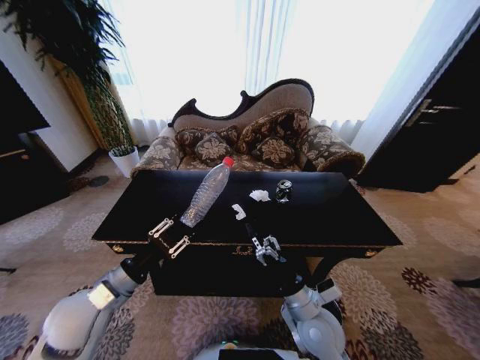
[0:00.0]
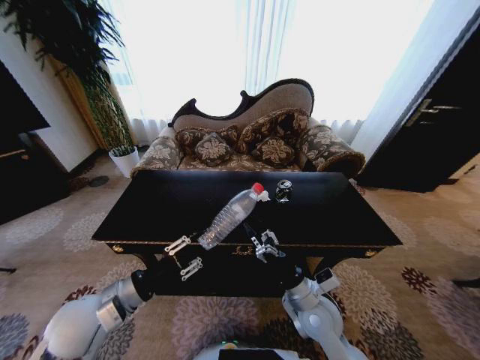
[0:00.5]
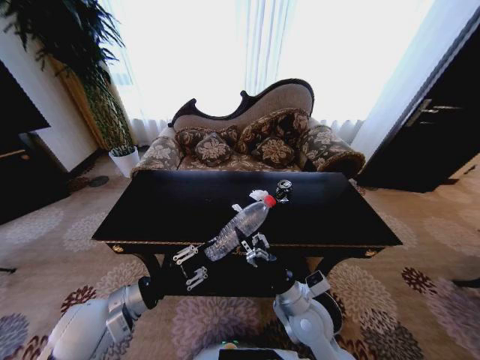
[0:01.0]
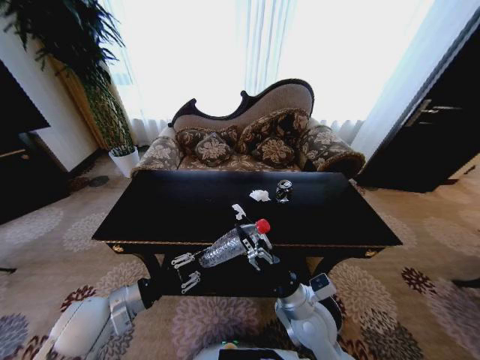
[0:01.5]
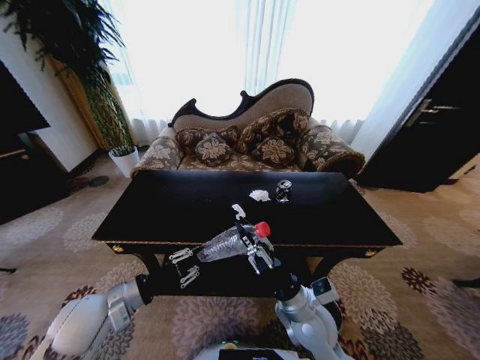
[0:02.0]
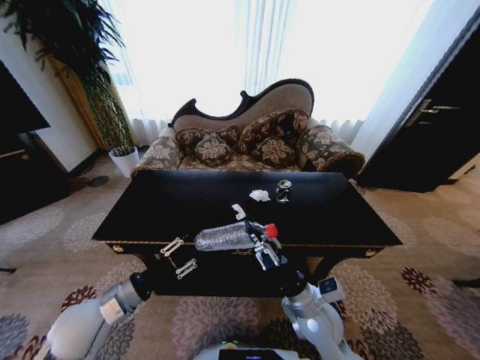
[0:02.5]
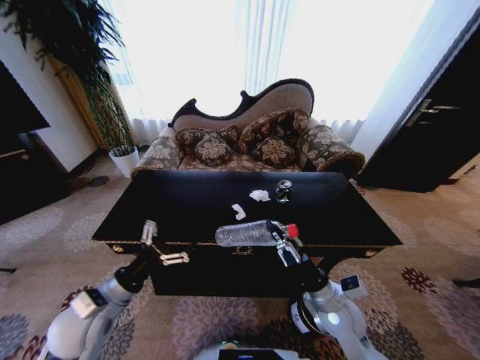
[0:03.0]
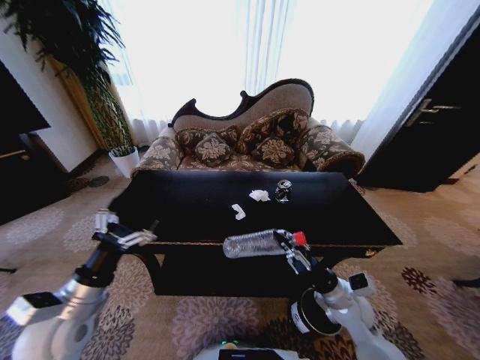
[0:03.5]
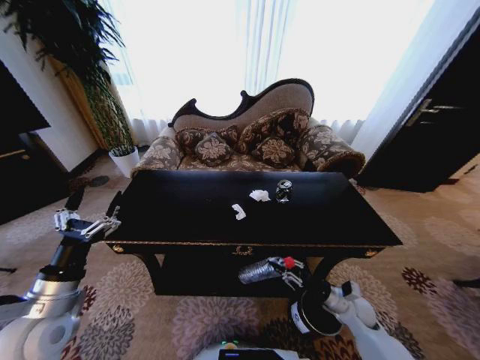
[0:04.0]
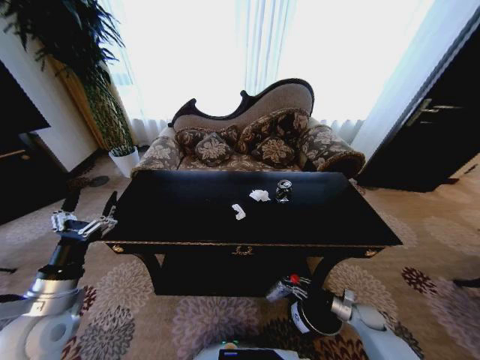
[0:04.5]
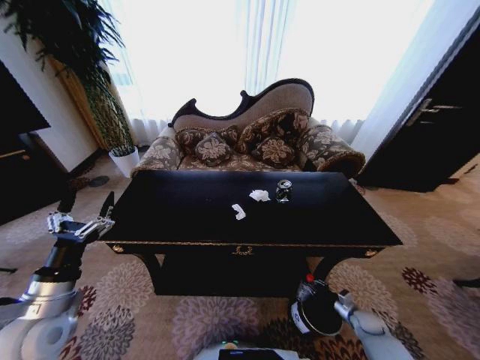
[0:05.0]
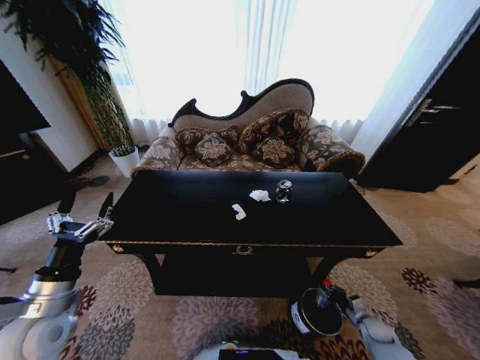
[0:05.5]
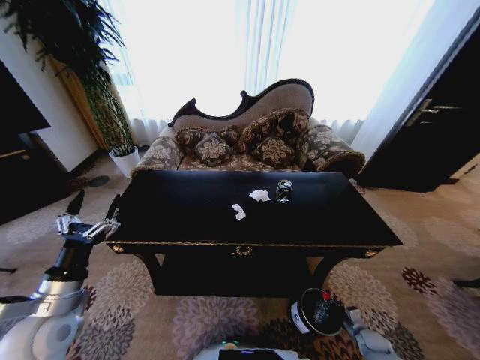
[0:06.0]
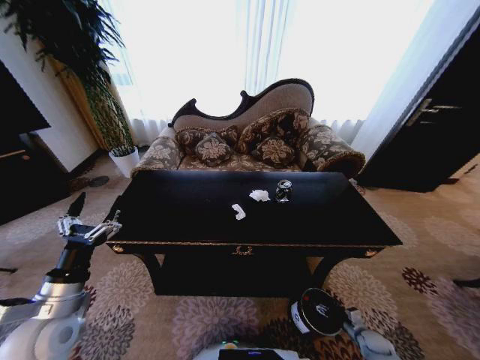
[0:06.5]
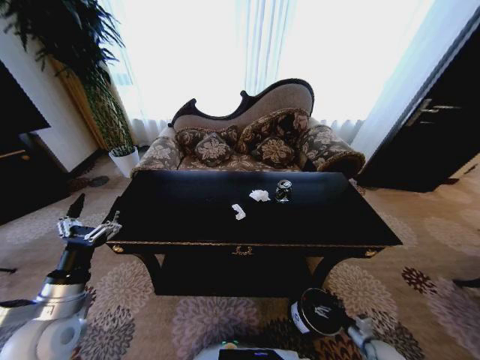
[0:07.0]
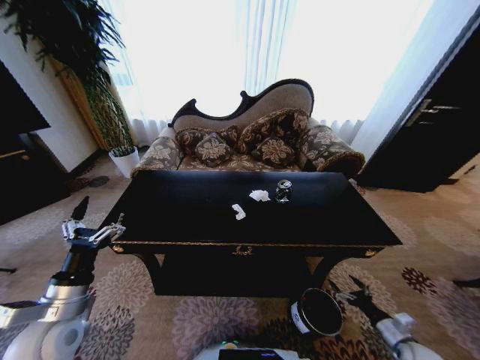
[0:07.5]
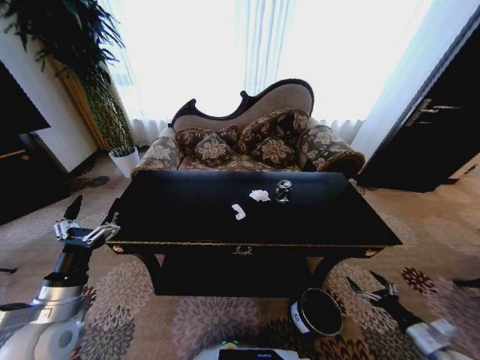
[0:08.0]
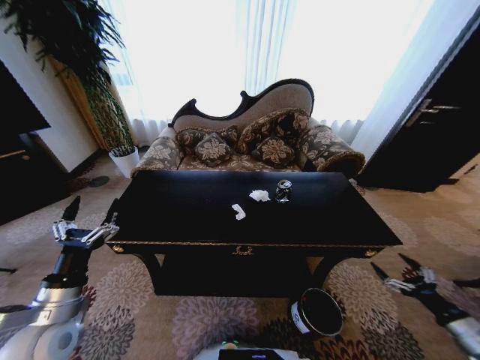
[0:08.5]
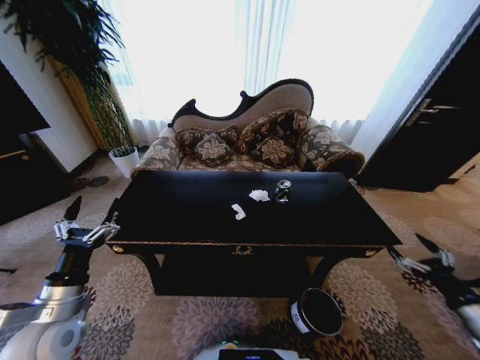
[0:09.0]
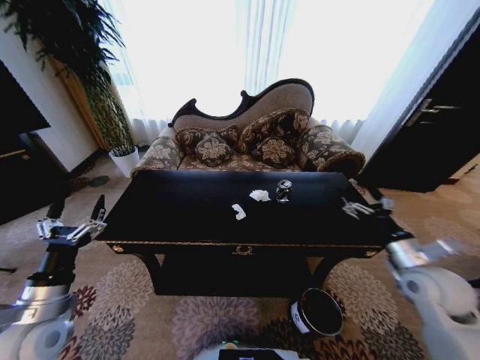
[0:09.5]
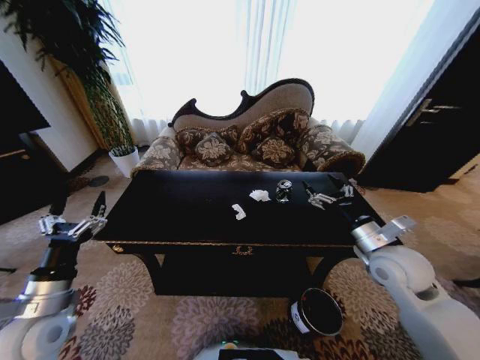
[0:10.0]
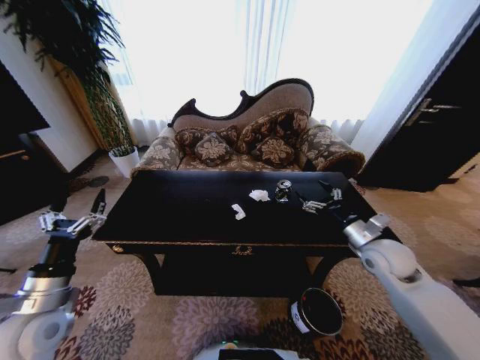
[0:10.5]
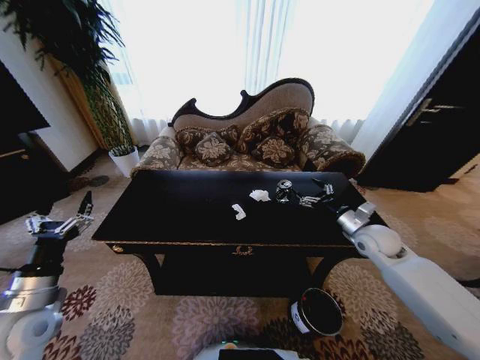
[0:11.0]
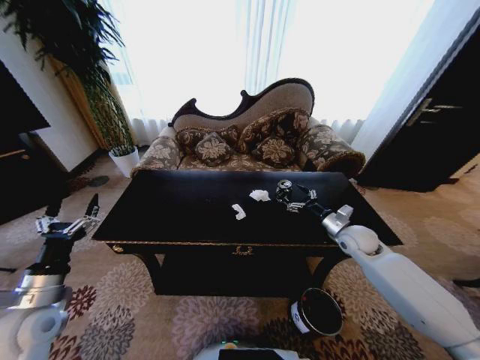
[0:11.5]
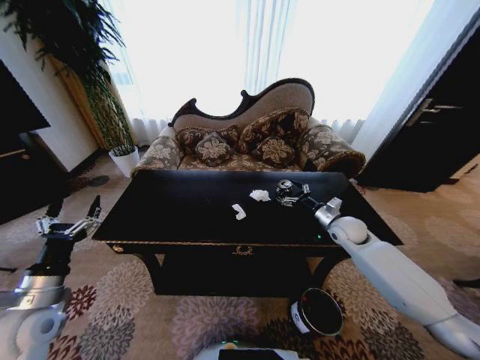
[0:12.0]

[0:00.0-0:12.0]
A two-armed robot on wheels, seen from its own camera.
Task of the whole recording: Move to the front of the table and place the trash on the table into the trash bin.
0:00.0 to 0:02.0: The right gripper closes.
0:02.0 to 0:04.0: The left gripper moves to the left, approximately 5 cm, and opens, while the right gripper is displaced to the right and downward by approximately 25 cm.
0:04.0 to 0:06.0: The right gripper moves downward and to the right, roughly 25 cm.
0:06.0 to 0:08.0: The right gripper travels upward by some 20 cm, and opens up.
0:08.0 to 0:10.0: The right gripper is displaced upward, to the left and forward by some 35 cm.
0:10.0 to 0:12.0: The right gripper moves forward and downward, some 20 cm.

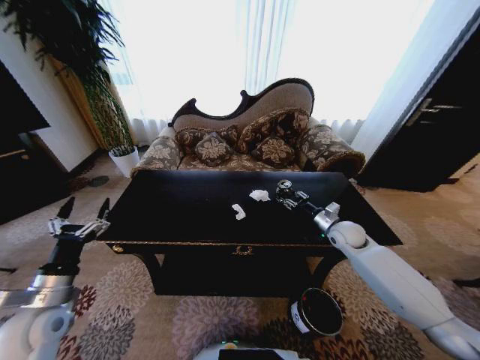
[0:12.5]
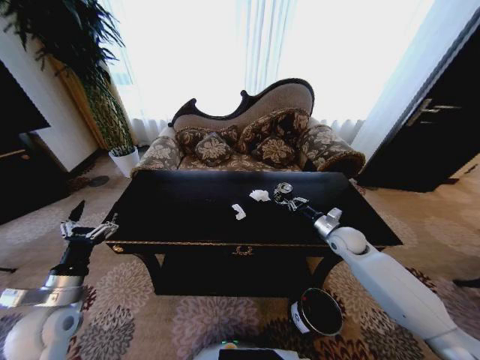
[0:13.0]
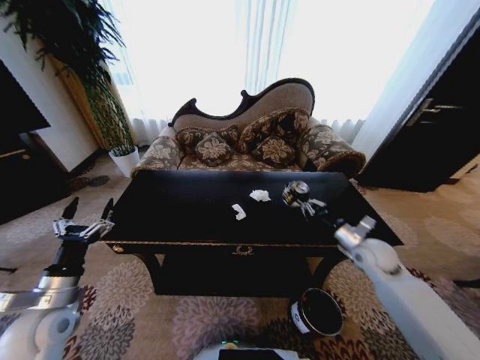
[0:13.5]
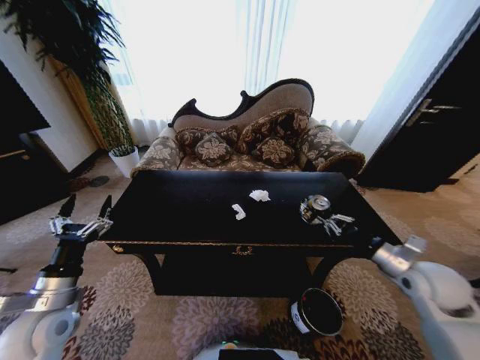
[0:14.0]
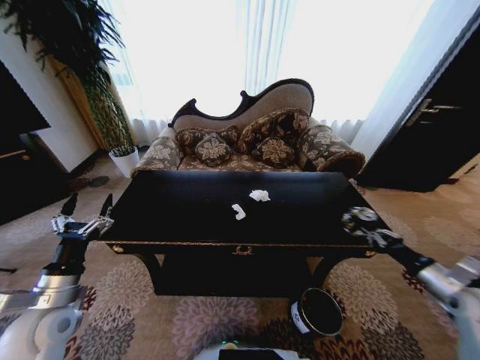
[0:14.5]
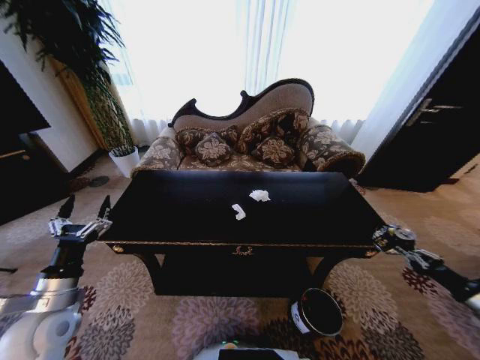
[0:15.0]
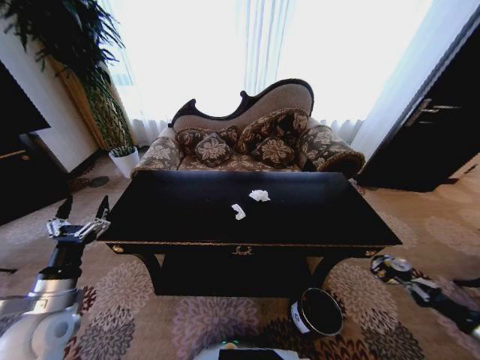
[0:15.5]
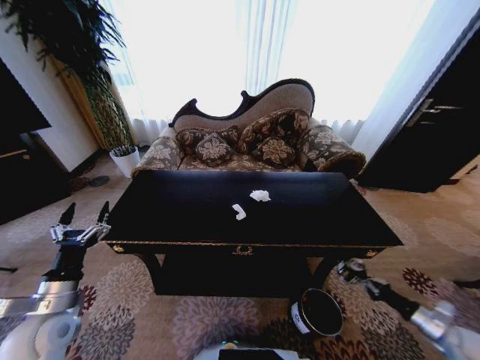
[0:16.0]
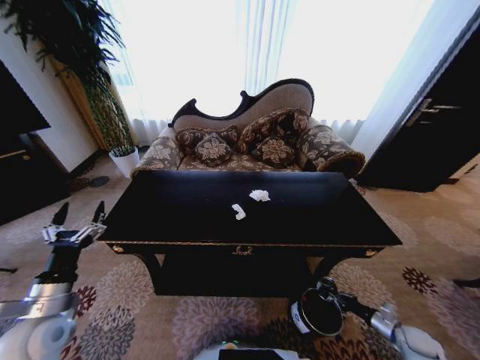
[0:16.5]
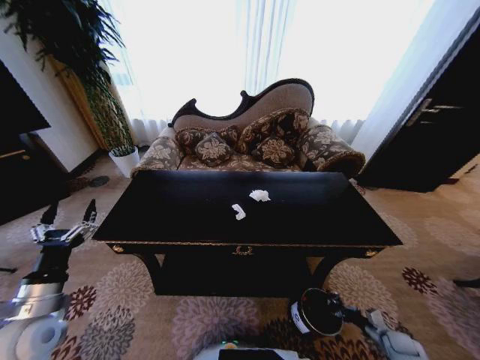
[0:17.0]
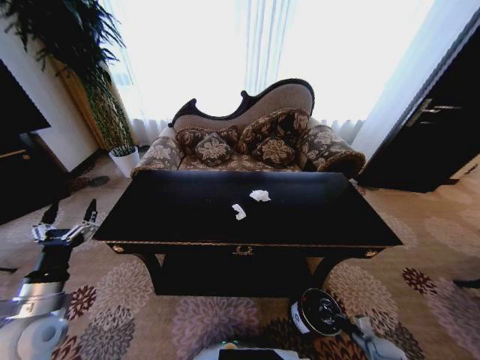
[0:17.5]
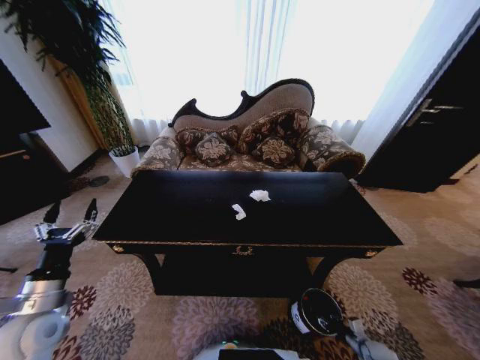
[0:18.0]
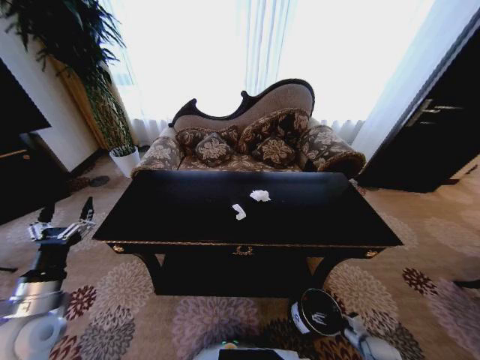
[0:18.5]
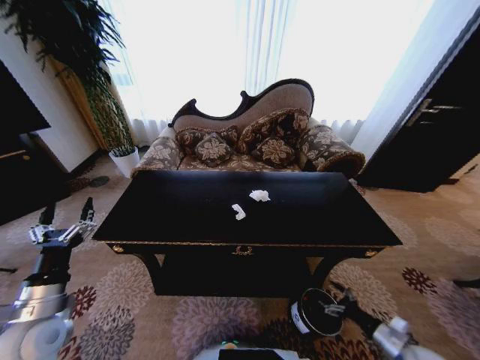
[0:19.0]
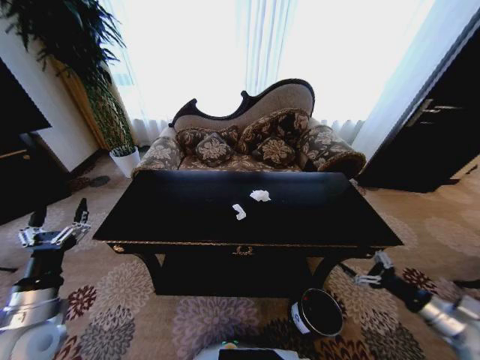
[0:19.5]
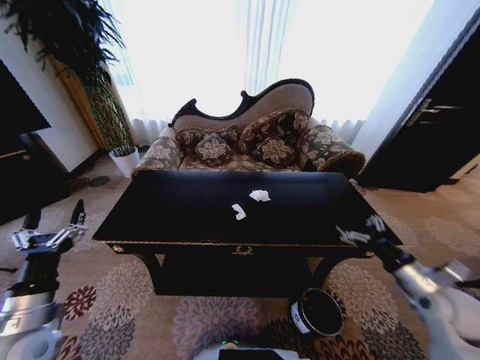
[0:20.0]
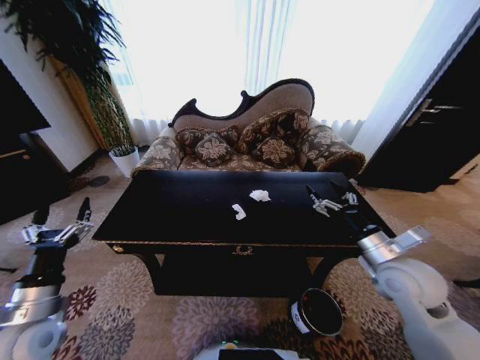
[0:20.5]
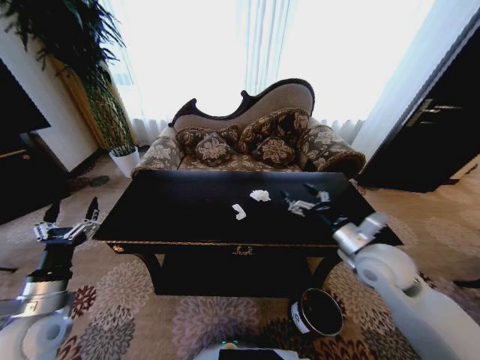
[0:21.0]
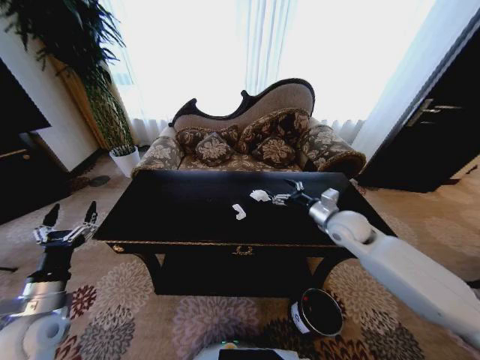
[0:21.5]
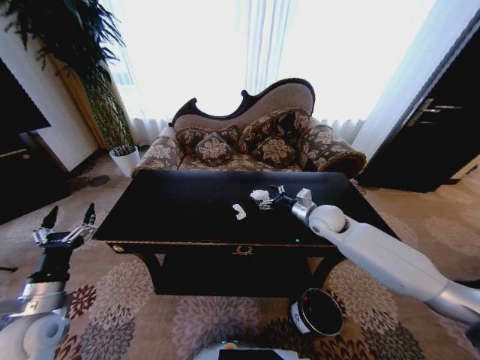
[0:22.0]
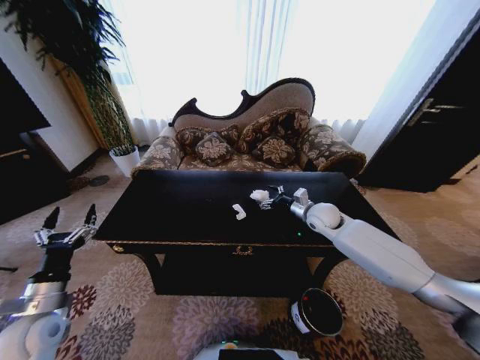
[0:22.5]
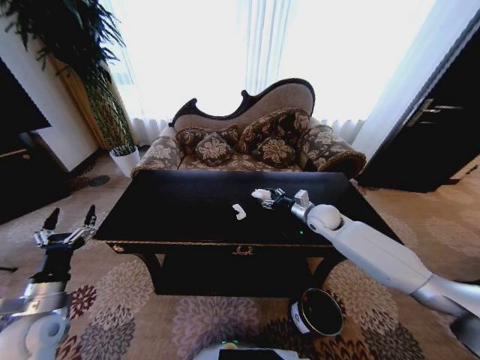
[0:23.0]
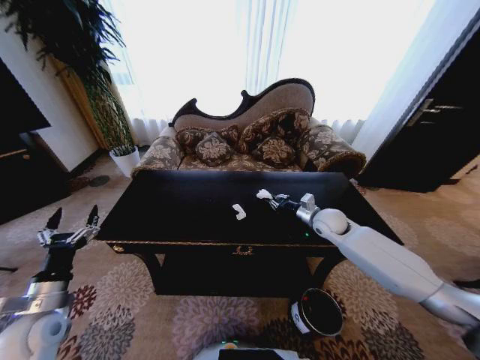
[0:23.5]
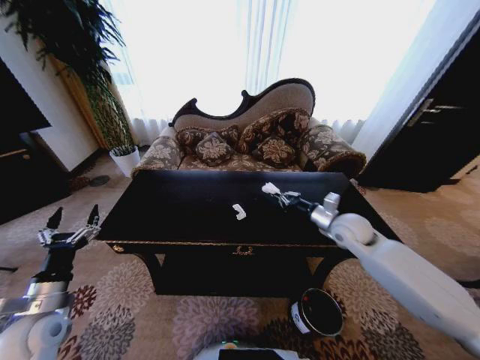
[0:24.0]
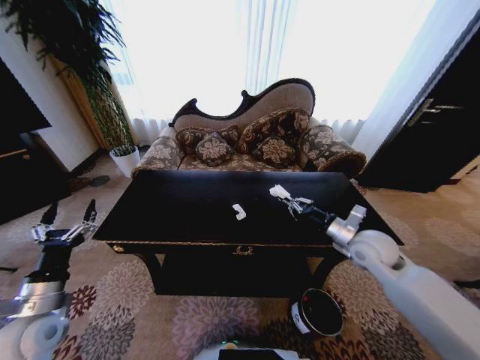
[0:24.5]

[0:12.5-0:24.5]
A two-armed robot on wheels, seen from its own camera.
Task of the whole recording: Move to the front of the table and place the trash on the table into the trash bin.
0:12.5 to 0:14.5: The right gripper is displaced backward and to the right by about 30 cm, and closes its fingers.
0:14.5 to 0:16.5: The right gripper heads downward, covering about 25 cm.
0:16.5 to 0:18.5: The right gripper goes about 10 cm to the left and downward, and opens up.
0:18.5 to 0:20.5: The right gripper heads upward, covering some 40 cm.
0:20.5 to 0:22.5: The right gripper goes approximately 20 cm forward.
0:22.5 to 0:24.5: The right gripper moves backward, some 15 cm, and closes its fingers.

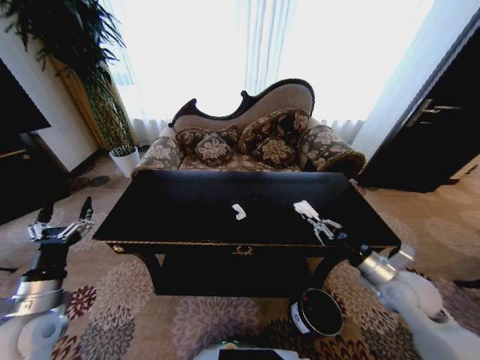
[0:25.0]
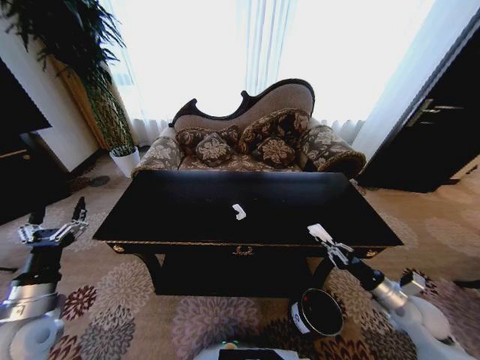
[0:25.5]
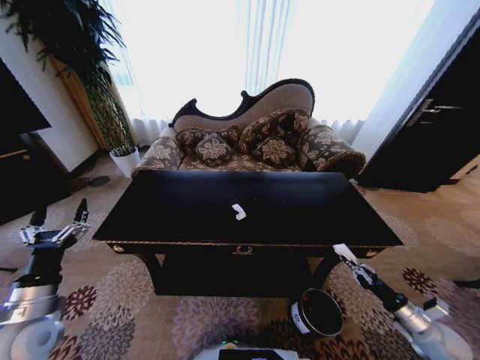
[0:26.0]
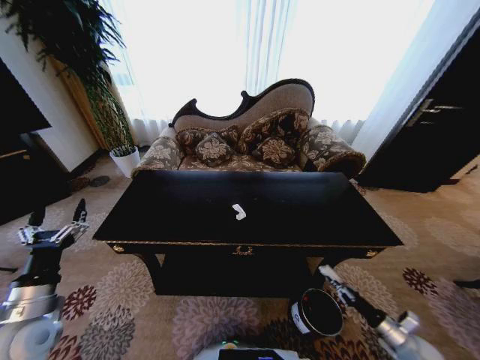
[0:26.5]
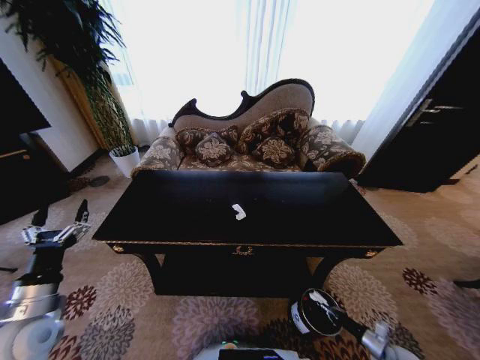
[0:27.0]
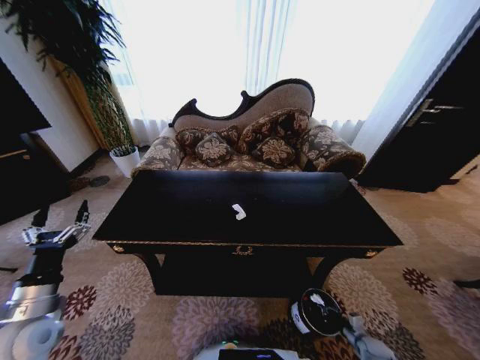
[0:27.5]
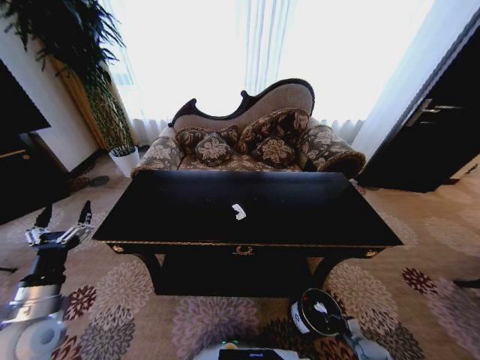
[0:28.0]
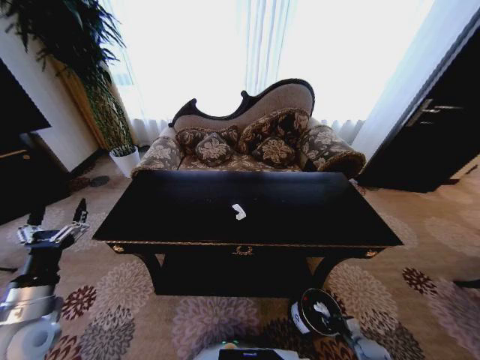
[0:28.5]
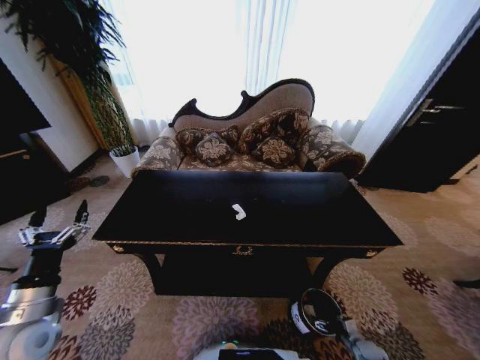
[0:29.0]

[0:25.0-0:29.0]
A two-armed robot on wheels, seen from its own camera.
Task of the whole recording: Move to the front of the table and place the trash on the table into the trash bin.
0:25.0 to 0:27.0: The right gripper goes approximately 35 cm downward and to the right.
0:27.0 to 0:29.0: The right gripper moves to the left and downward, approximately 10 cm, and opens its fingers.
